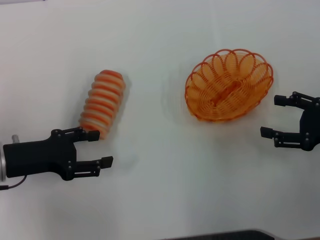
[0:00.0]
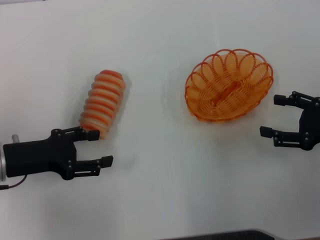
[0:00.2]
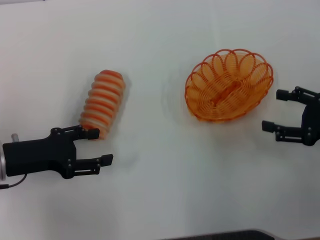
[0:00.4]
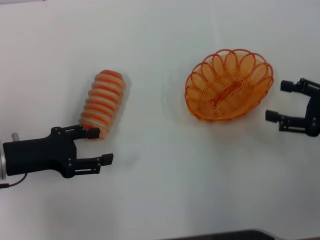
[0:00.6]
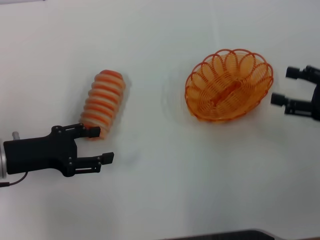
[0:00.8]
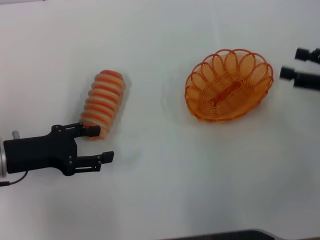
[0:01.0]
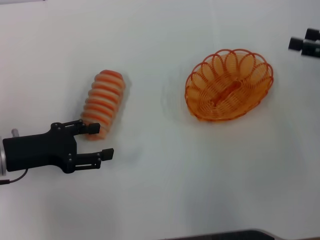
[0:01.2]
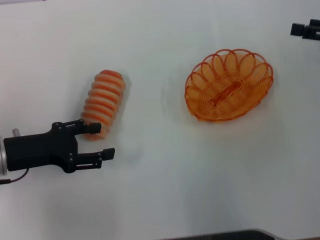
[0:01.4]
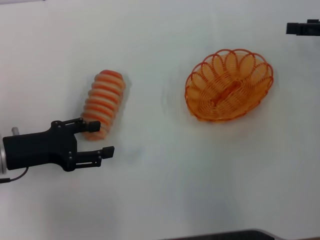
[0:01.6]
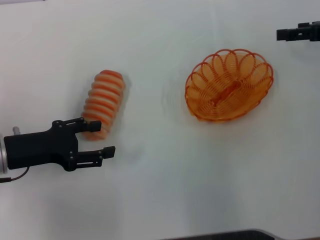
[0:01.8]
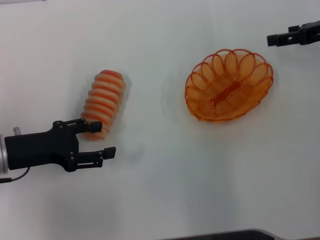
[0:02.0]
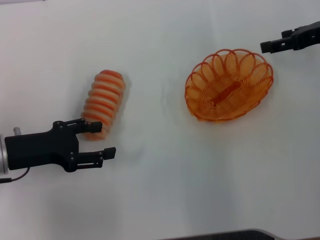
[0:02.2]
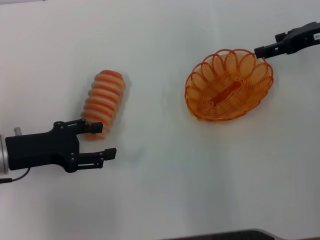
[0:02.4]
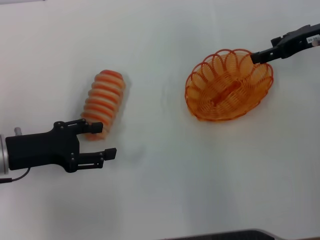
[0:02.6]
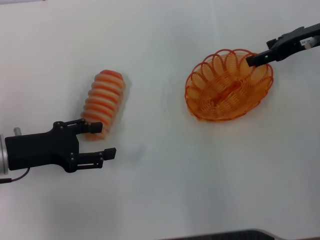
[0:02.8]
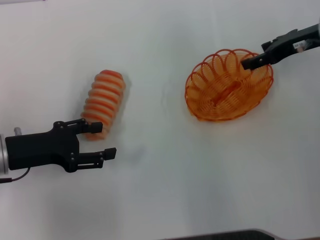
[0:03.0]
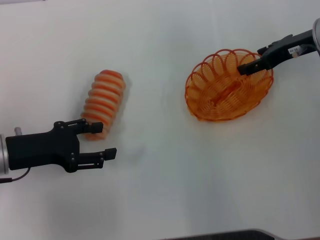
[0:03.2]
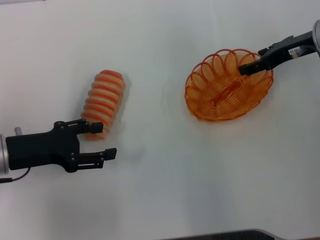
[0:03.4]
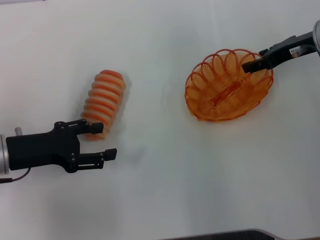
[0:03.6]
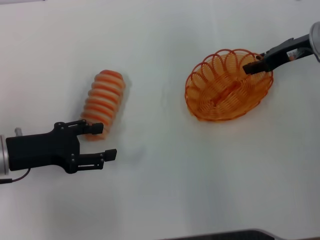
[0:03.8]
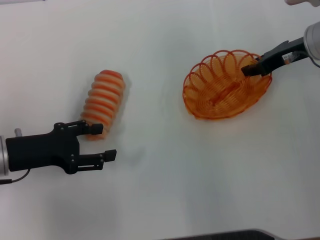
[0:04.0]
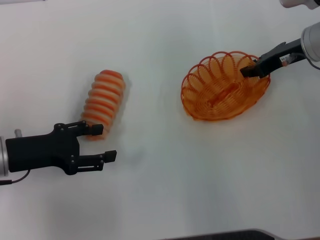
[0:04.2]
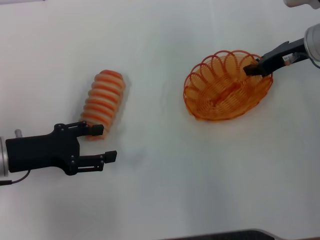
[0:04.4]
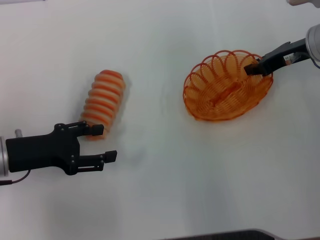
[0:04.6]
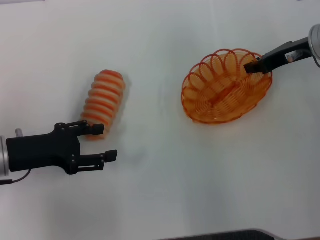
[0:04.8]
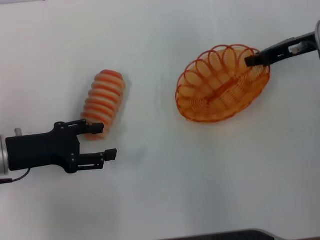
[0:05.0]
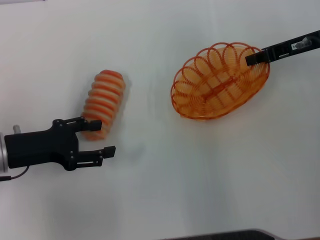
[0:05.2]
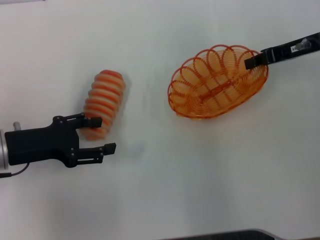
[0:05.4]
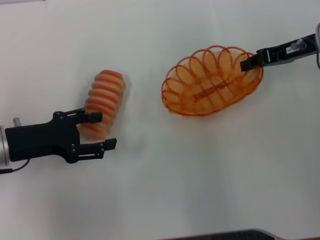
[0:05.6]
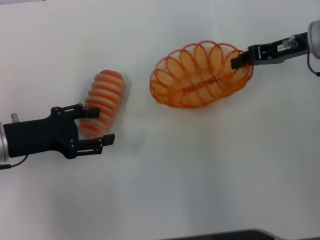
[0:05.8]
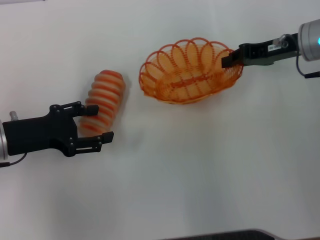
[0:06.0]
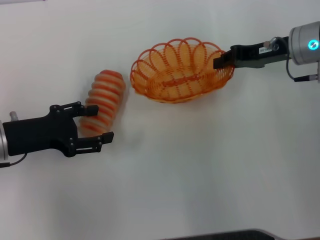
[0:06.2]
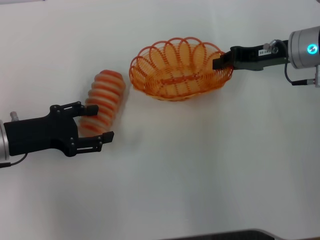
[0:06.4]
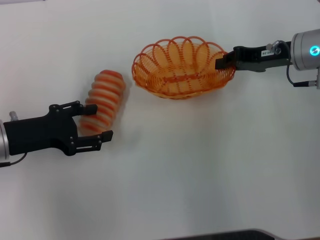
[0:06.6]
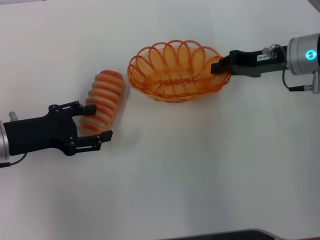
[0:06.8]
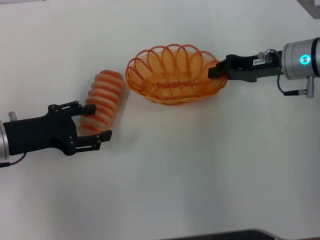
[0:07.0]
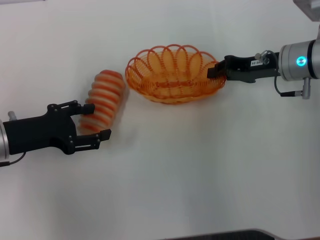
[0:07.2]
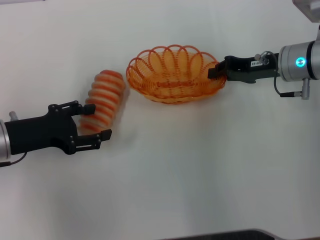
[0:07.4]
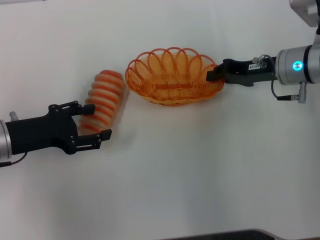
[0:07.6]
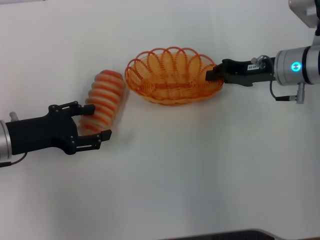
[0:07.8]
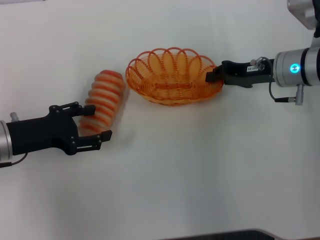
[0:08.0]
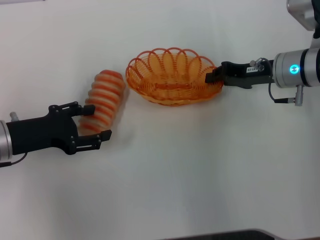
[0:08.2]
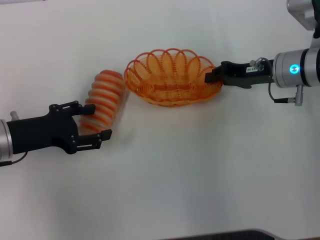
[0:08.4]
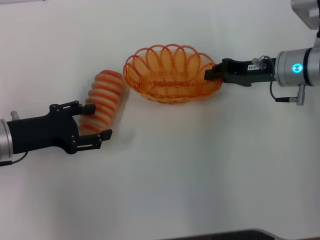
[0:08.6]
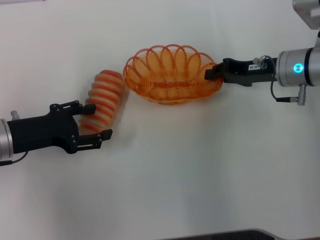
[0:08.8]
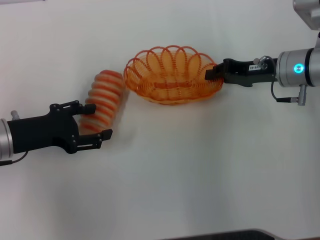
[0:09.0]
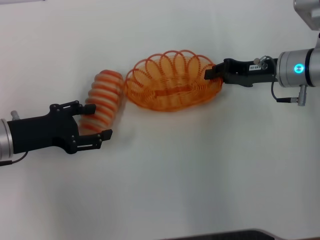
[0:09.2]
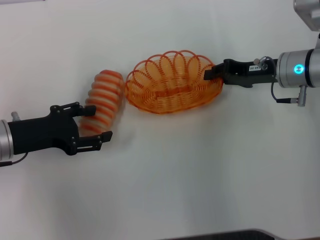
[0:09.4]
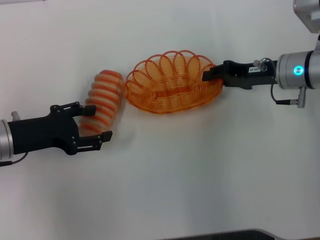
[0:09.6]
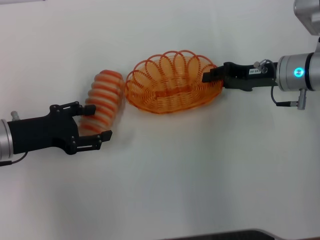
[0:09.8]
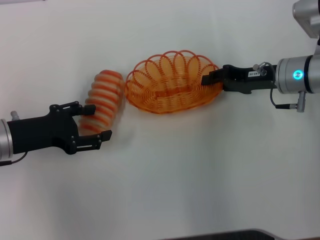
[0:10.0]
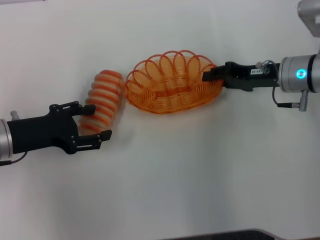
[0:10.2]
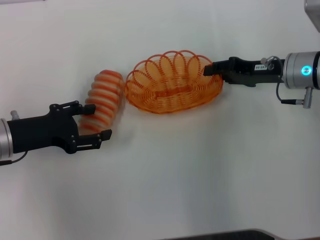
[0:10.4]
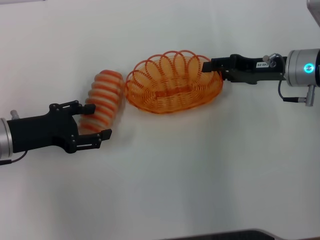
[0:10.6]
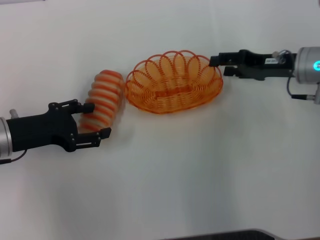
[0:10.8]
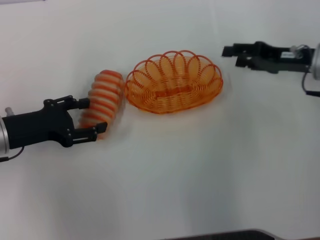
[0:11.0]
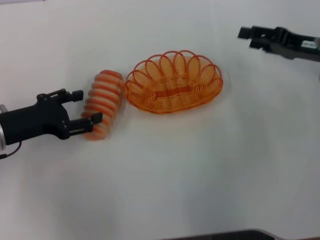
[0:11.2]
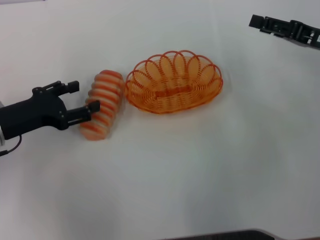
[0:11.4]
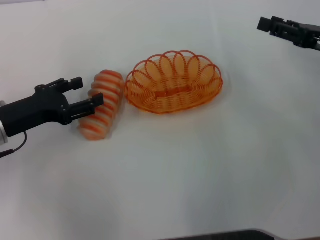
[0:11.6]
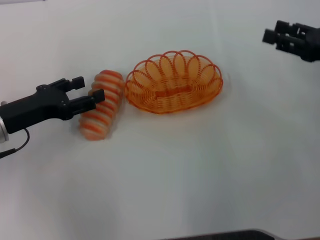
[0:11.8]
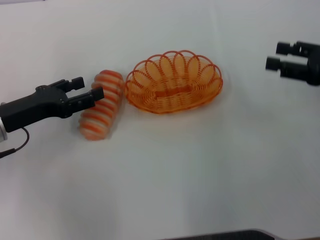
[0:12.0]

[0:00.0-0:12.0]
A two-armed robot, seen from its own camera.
Step, 0:00.0 to 0:05.2: Pick up the basket with the right gripper.
Step, 0:05.4 to 0:10.6: Place the basket in the center of view with the right gripper.
0:00.0 to 0:01.6: The right gripper heads forward and upward, covering about 15 cm.
0:01.6 to 0:03.0: The right gripper heads to the left, covering roughly 10 cm.
0:03.0 to 0:04.4: The right gripper closes up.
0:06.0 to 0:07.6: The right gripper ends up approximately 5 cm from where it was.
0:07.6 to 0:09.0: Both grippers stay about where they are.
0:09.0 to 0:10.4: Neither gripper changes place.
0:10.4 to 0:12.0: The right gripper travels to the right and backward by approximately 10 cm, and opens its fingers.

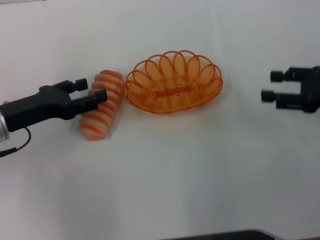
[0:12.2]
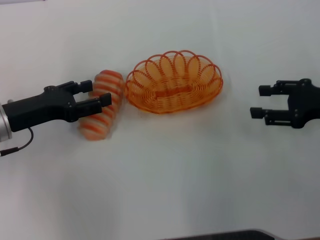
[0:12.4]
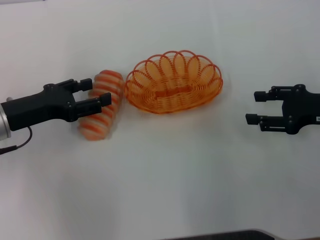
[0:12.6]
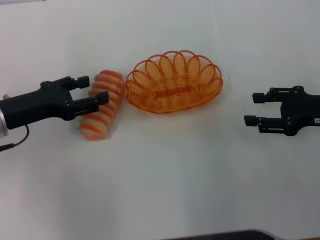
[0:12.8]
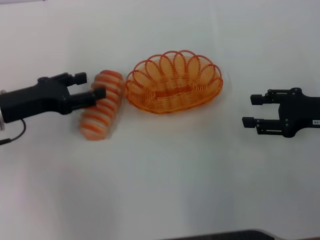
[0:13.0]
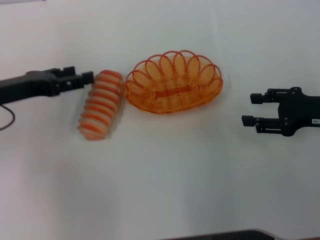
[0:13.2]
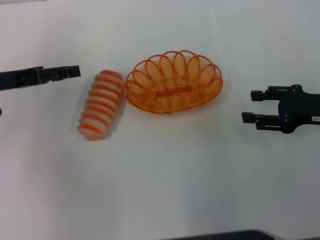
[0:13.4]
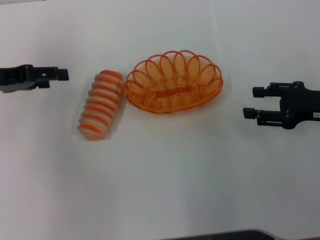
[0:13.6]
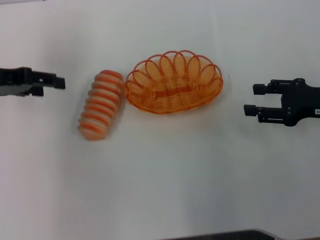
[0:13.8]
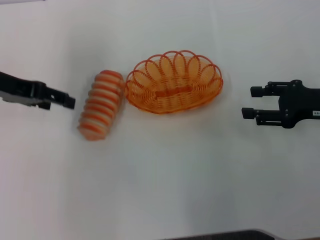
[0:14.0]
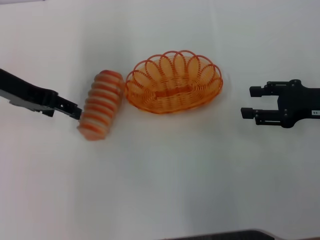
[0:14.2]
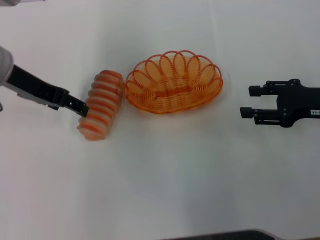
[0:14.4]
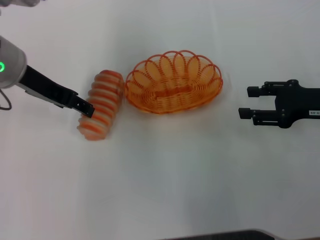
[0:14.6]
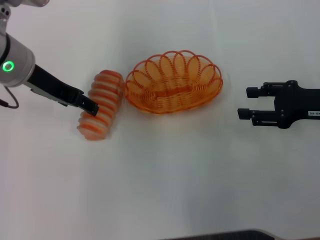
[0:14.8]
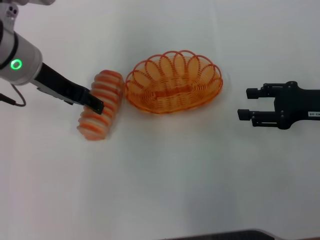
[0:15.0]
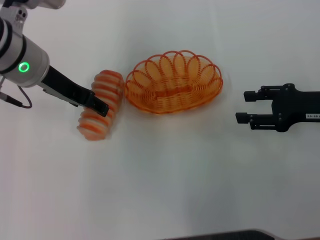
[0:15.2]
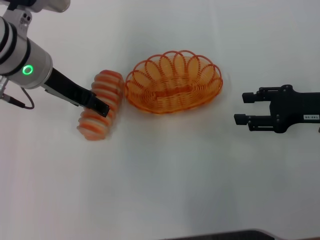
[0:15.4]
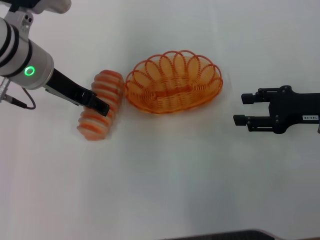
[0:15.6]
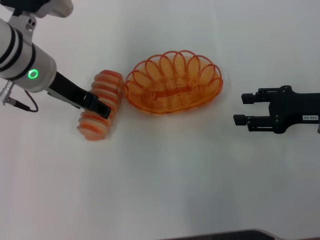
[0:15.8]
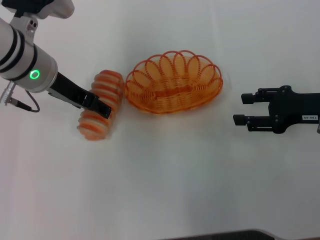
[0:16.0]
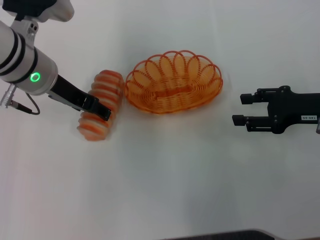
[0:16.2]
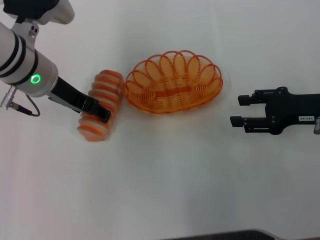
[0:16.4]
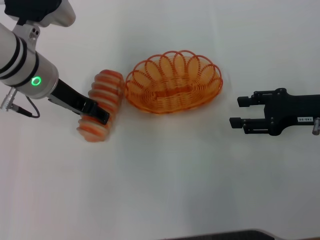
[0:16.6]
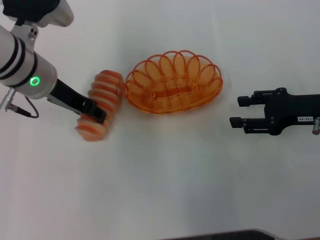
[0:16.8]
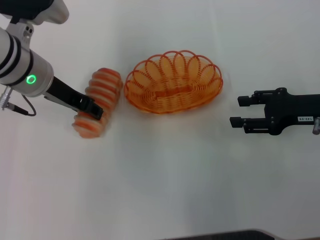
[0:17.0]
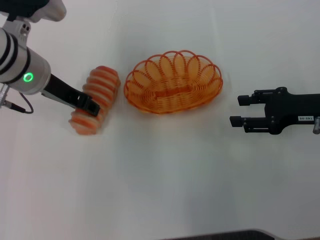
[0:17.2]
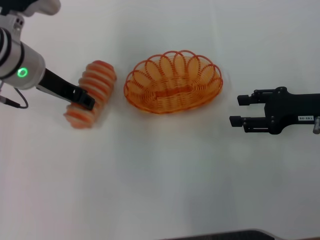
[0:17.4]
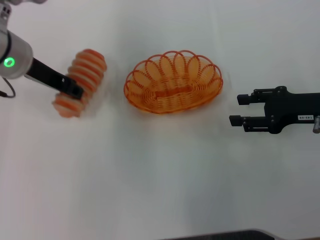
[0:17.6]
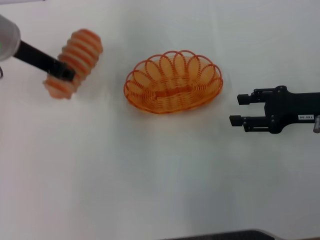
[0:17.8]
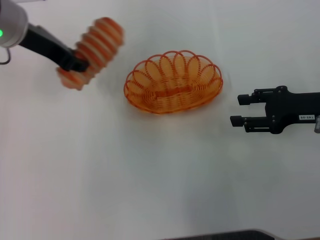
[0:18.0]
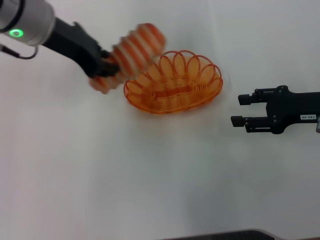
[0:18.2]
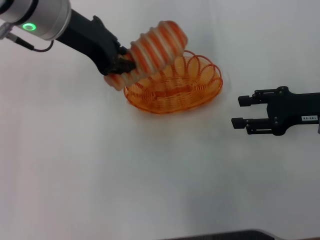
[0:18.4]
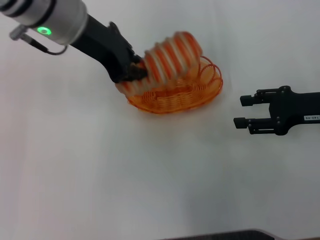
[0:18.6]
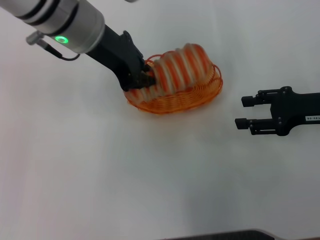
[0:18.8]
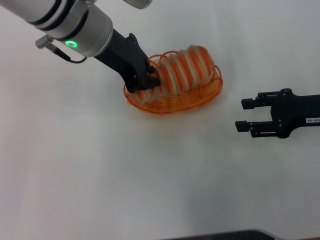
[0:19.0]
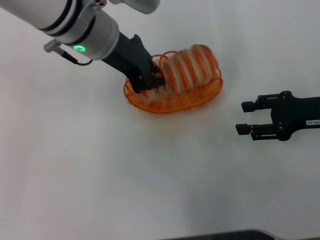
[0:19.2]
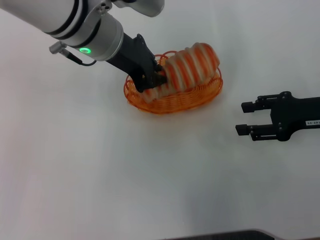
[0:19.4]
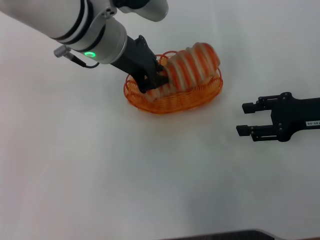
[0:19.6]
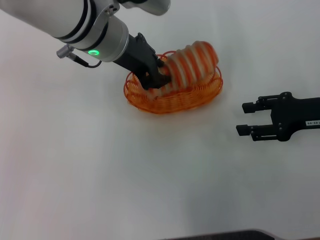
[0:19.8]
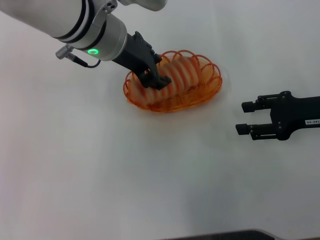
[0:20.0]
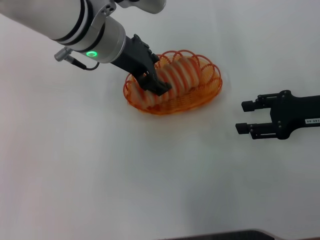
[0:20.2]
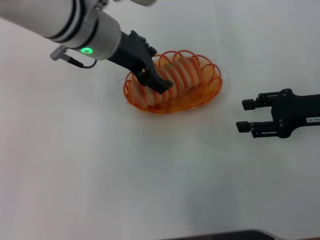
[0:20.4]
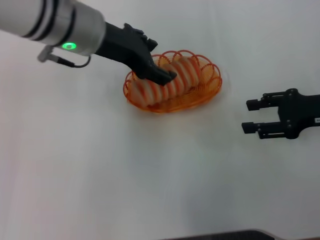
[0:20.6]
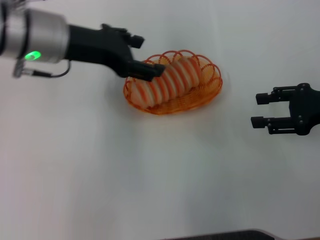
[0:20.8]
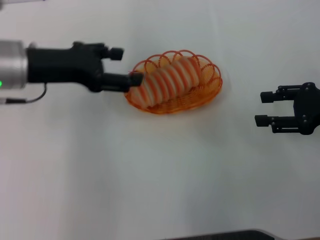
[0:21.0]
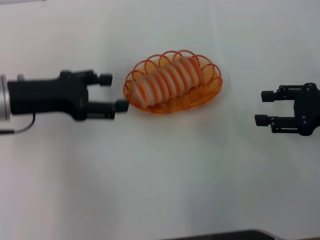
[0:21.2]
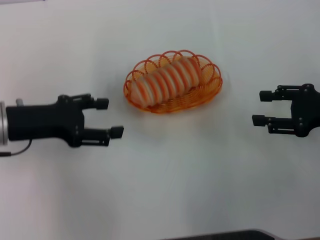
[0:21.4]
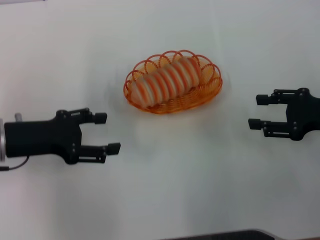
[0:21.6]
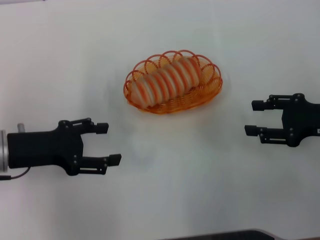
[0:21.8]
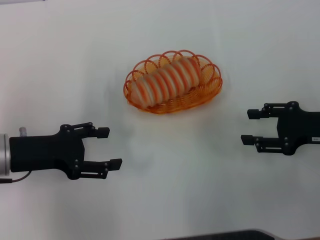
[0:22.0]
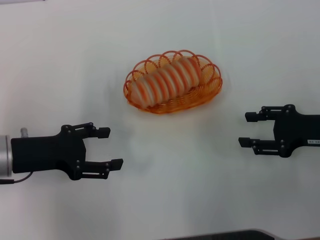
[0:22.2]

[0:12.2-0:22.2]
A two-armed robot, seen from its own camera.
Step, 0:12.2 to 0:17.4: Pick up the long bread with the left gripper.
Step, 0:17.6 to 0:20.4: Place the long bread into the basket with the left gripper.
0:12.2 to 0:13.6: The left gripper goes roughly 10 cm upward and forward.
0:13.6 to 0:15.0: The left gripper moves to the right, roughly 10 cm.
0:15.0 to 0:16.4: The grippers make only small movements.
0:16.4 to 0:18.0: The left gripper shifts roughly 5 cm upward, and closes up.
0:18.0 to 0:19.4: The left gripper travels to the right by roughly 10 cm.
0:19.4 to 0:20.8: The left gripper moves to the left, roughly 10 cm, and opens up.
0:20.8 to 0:22.2: The left gripper goes approximately 15 cm downward, to the left and backward.
